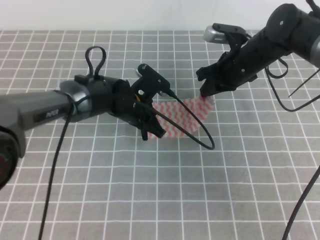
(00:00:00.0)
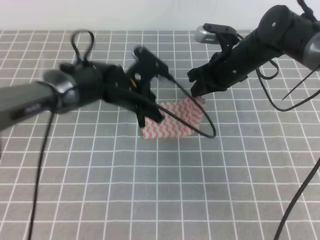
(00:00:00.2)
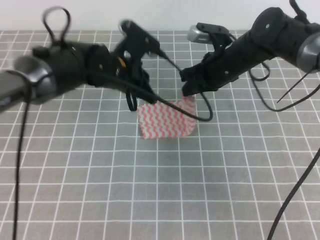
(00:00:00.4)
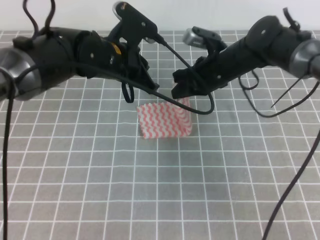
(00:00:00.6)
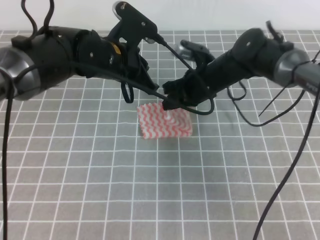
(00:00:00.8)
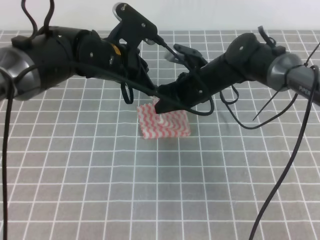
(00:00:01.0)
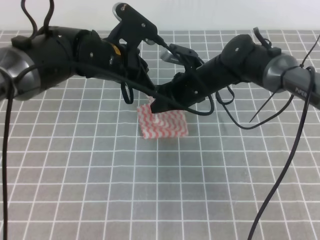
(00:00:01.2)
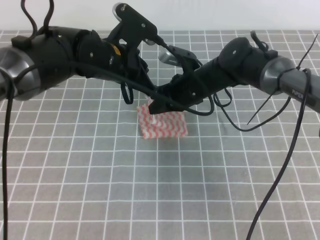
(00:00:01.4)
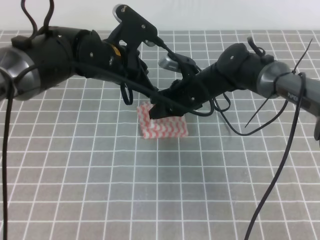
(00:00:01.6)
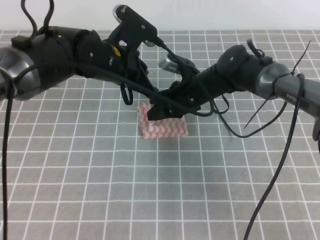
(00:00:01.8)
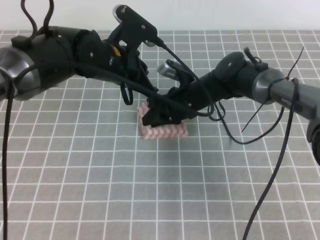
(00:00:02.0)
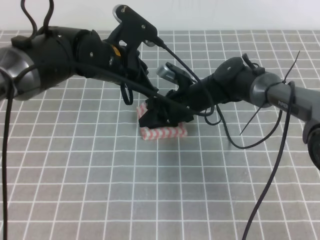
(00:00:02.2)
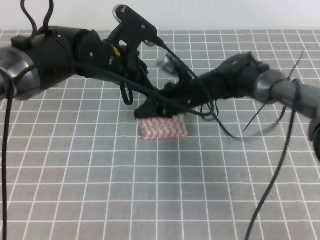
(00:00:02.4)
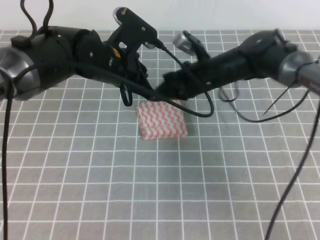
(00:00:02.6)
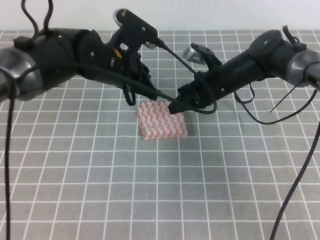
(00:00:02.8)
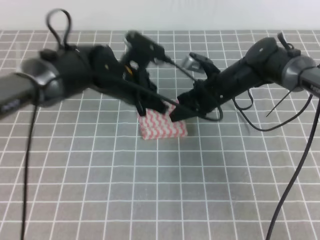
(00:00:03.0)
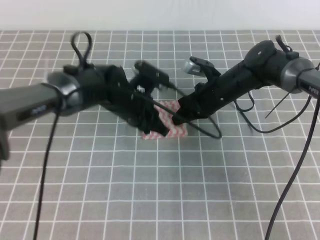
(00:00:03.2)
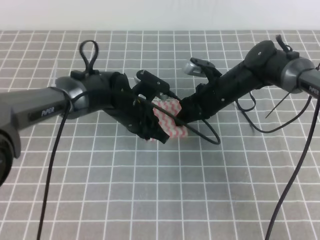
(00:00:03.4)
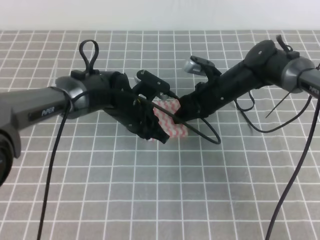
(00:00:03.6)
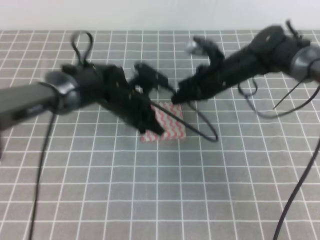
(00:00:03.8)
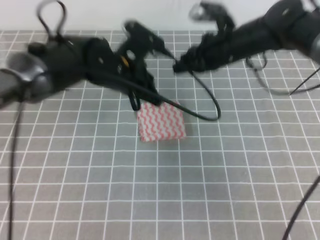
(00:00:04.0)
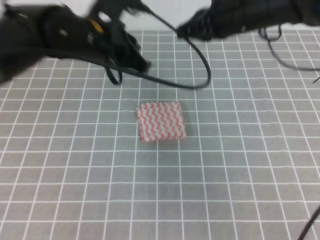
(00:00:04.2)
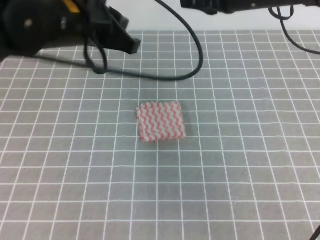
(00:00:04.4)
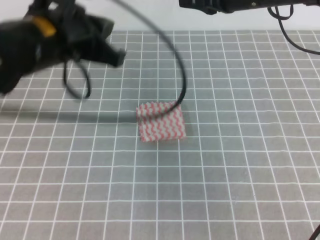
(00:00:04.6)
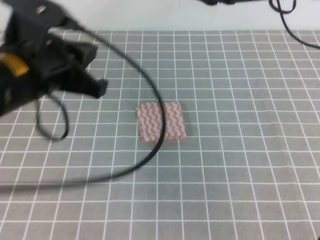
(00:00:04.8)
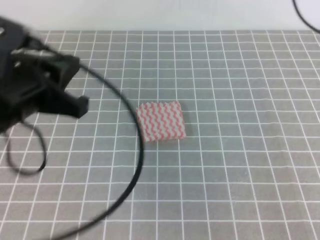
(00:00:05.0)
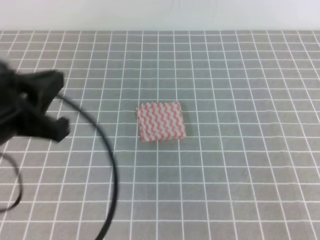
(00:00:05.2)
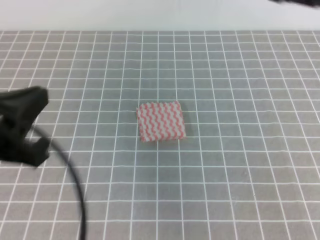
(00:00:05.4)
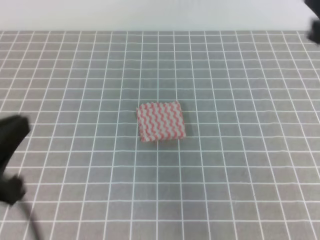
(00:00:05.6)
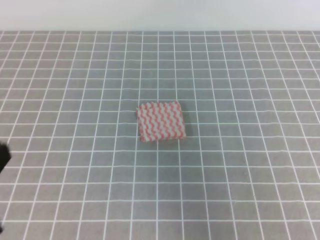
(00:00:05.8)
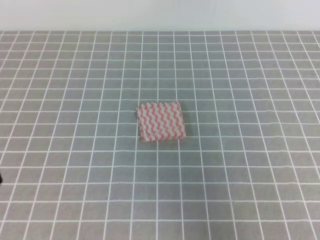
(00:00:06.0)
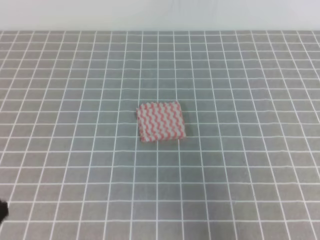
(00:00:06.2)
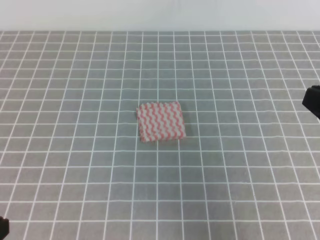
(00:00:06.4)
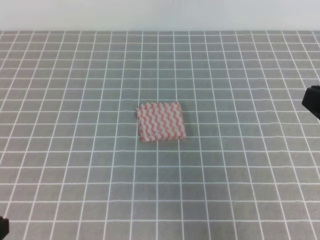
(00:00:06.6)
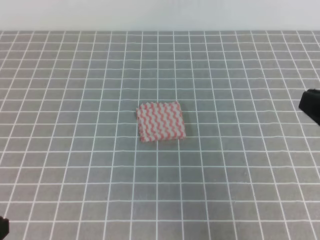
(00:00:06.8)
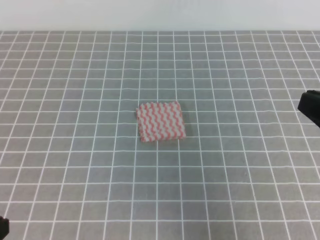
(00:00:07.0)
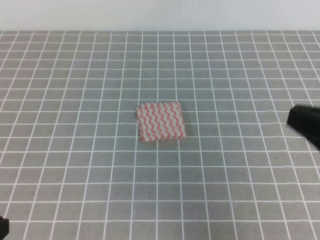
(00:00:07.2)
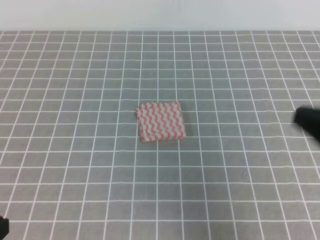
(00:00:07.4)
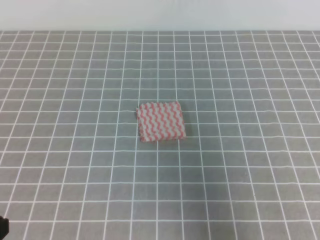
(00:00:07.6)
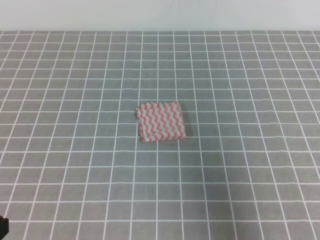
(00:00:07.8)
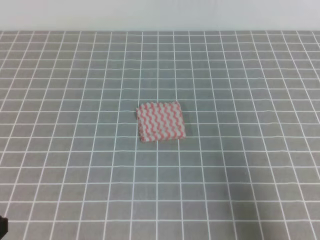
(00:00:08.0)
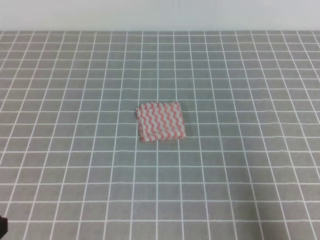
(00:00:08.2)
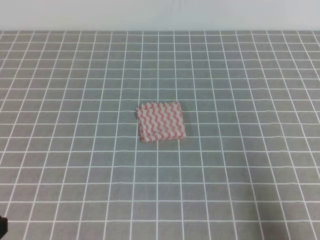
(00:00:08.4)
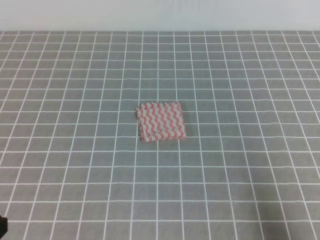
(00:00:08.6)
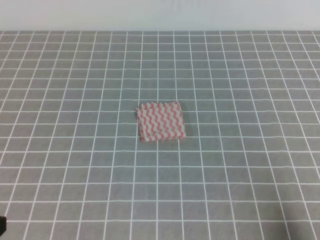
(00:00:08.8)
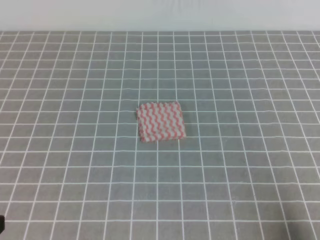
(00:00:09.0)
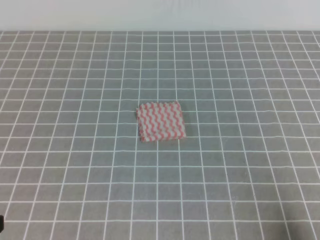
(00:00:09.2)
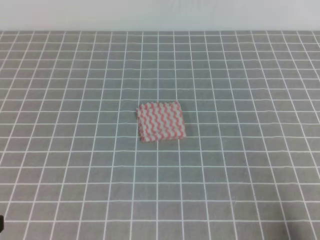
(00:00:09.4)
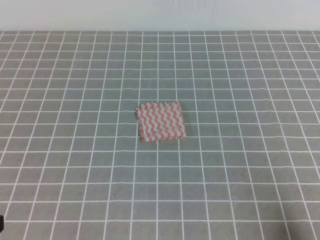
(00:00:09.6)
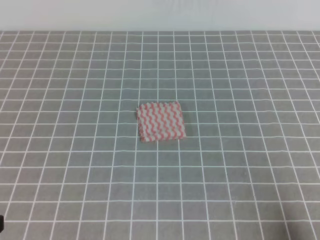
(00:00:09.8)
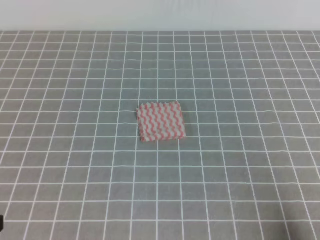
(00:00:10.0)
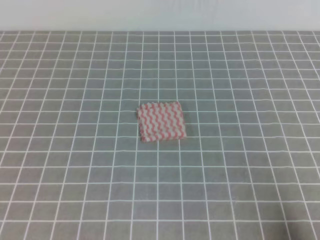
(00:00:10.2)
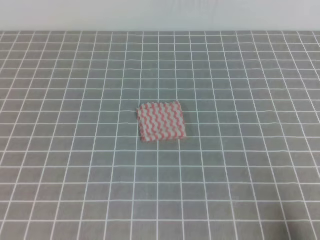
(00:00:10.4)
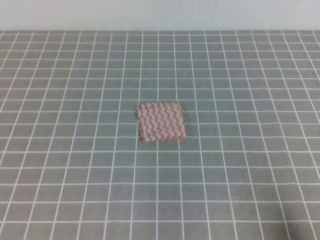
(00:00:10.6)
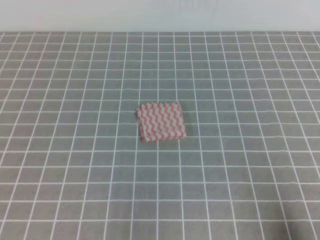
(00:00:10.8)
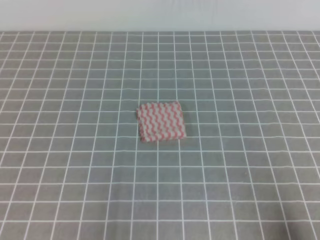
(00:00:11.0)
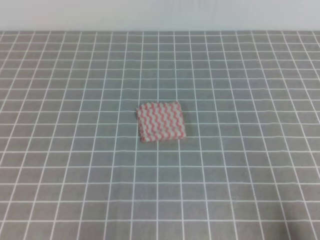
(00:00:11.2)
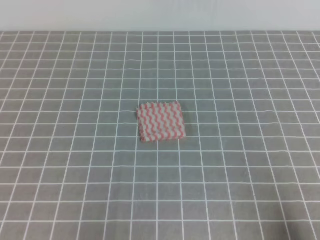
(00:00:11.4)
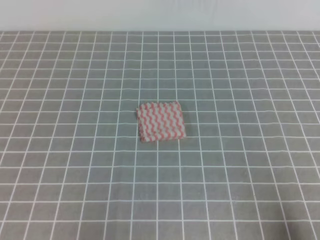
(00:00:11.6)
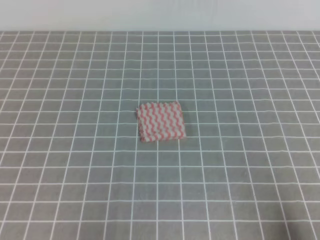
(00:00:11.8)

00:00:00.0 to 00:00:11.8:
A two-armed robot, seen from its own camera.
Step, 00:00:00.0 to 00:00:11.8: Fold the towel.
00:00:00.0 to 00:00:01.4: The left gripper shifts some 10 cm upward; the right gripper moves to the left, roughly 10 cm.
00:00:01.4 to 00:00:03.0: The right gripper moves roughly 5 cm, and opens, then closes again.
00:00:03.0 to 00:00:04.4: The right gripper moves upward, some 20 cm; the left gripper heads upward and to the left, covering approximately 15 cm.
00:00:04.4 to 00:00:06.0: The left gripper shifts approximately 30 cm backward and to the left. The right gripper is displaced backward and to the right by roughly 30 cm.
00:00:06.0 to 00:00:07.4: The grippers move only a little.
00:00:07.4 to 00:00:08.8: The right gripper goes about 20 cm downward, backward and to the right.
